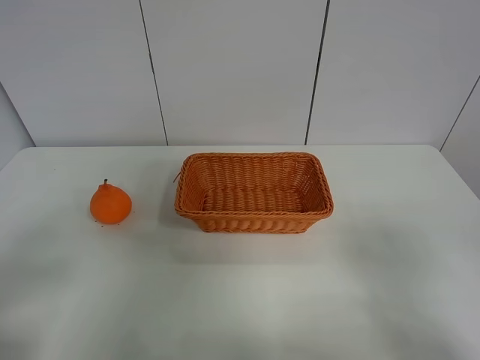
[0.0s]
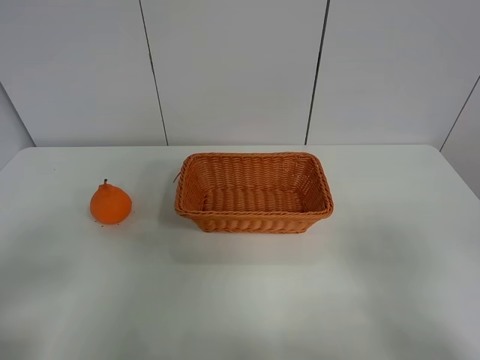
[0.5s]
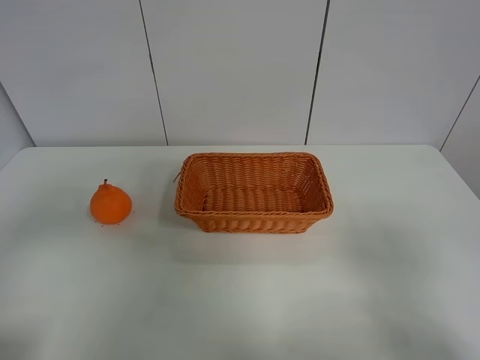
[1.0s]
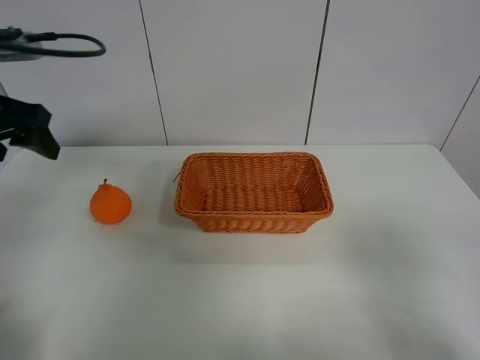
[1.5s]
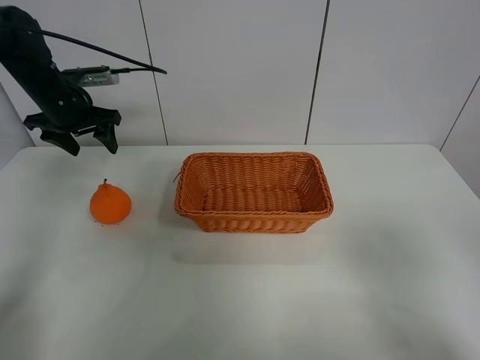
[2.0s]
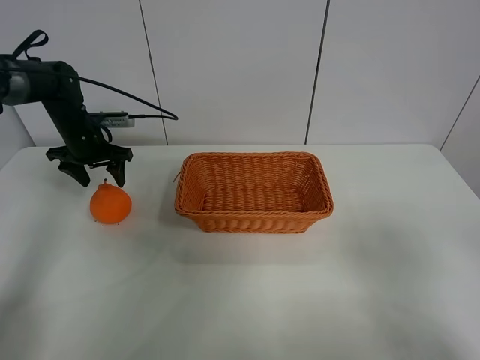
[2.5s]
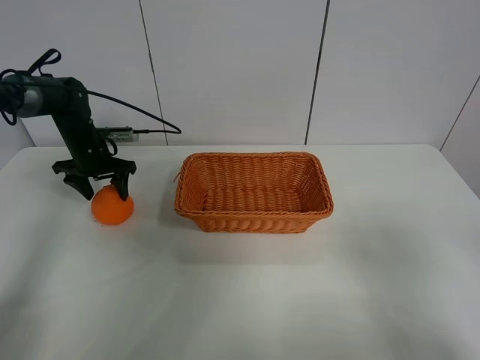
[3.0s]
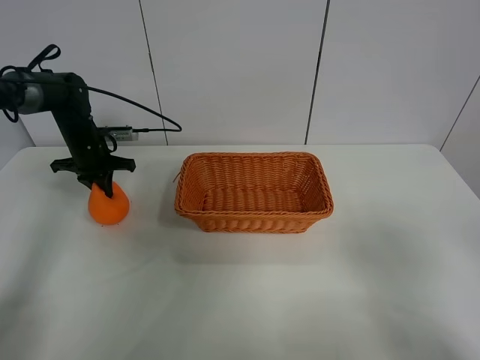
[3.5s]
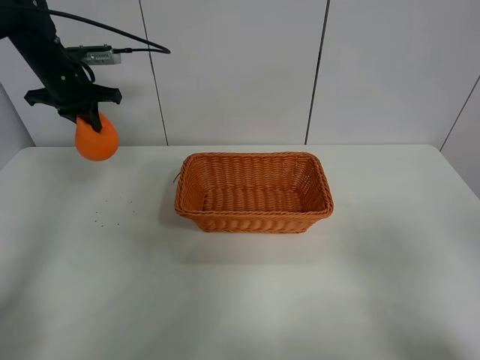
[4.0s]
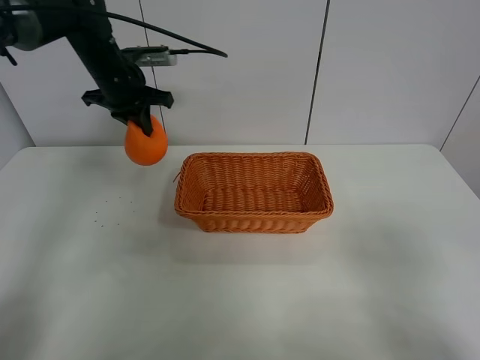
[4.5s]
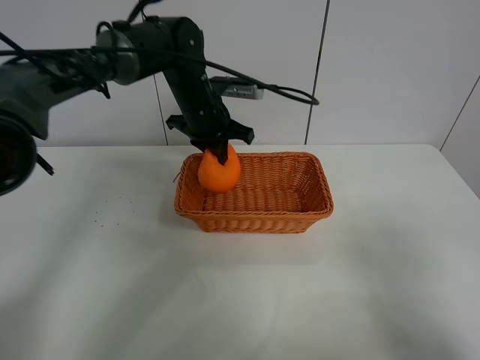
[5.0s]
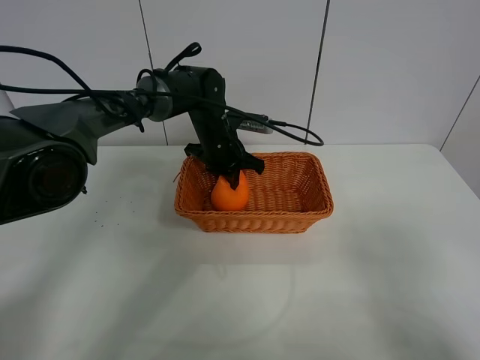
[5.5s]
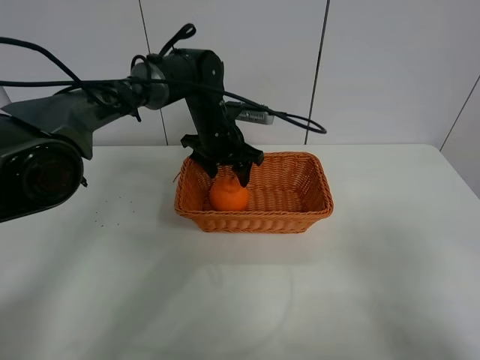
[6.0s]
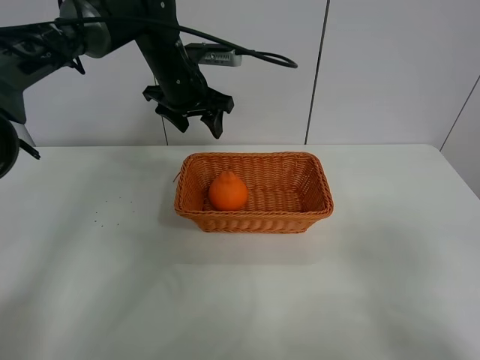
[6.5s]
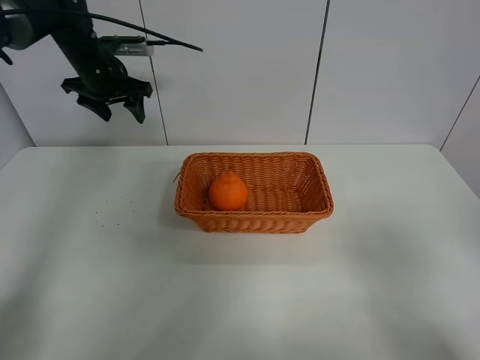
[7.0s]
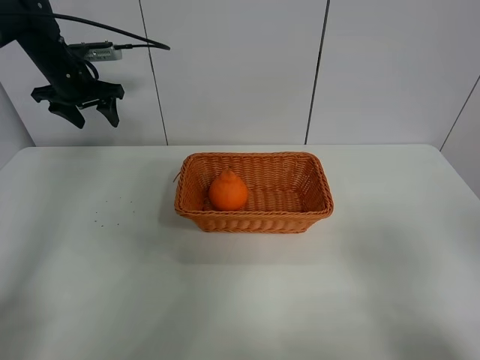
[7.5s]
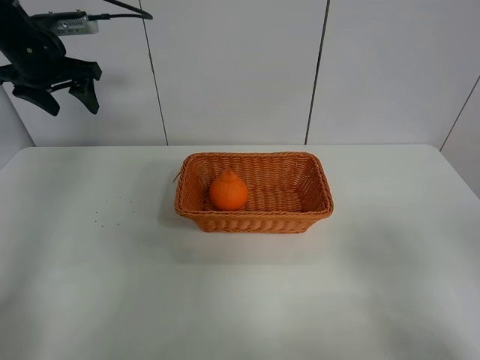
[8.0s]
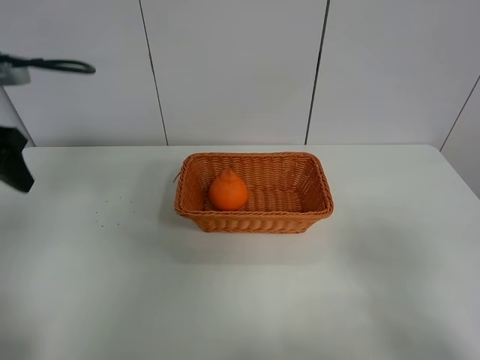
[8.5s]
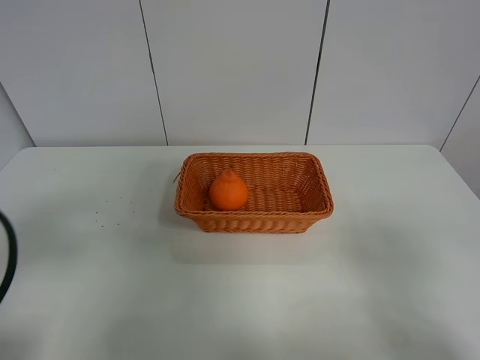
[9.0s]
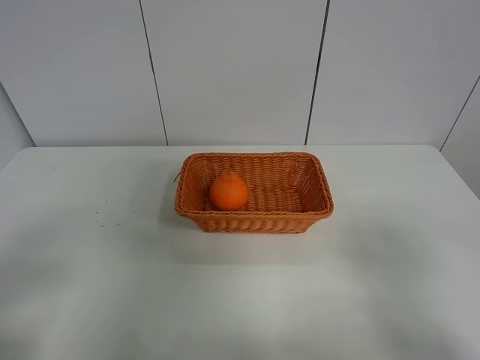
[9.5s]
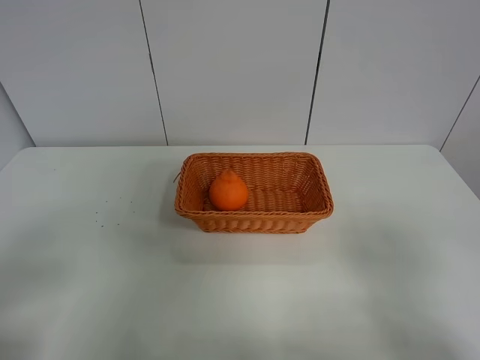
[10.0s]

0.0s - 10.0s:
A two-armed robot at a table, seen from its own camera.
Task of the whole recording: left gripper grabs oranges and puts them in the basket.
Step, 0.0s - 3.0s: Grasp the orange with left gripper.
Step, 3.5s - 6.5s: Place the orange in the basket with left gripper.
0.0s - 2.0s: The left gripper goes about 40 cm forward.
2.0s - 4.0s: The left gripper moves some 10 cm downward and comes back, and closes.
4.0s - 6.0s: The left gripper travels to the right by approximately 25 cm, and opens up.
6.0s - 8.0s: The left gripper shifts some 30 cm to the left and upward.
8.0s - 10.0s: The left gripper is displaced backward by about 40 cm.
